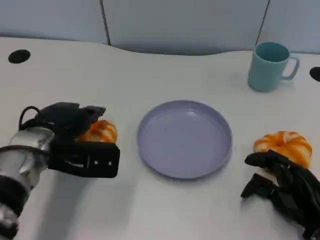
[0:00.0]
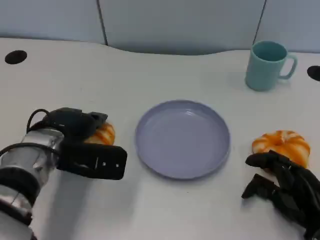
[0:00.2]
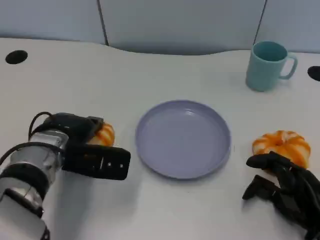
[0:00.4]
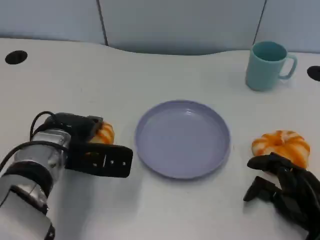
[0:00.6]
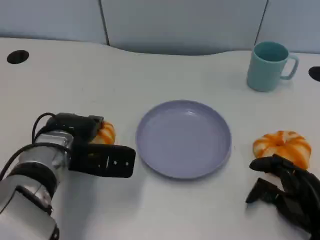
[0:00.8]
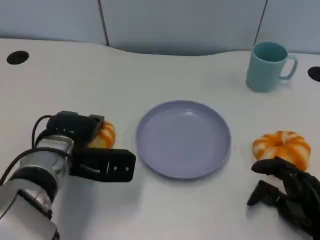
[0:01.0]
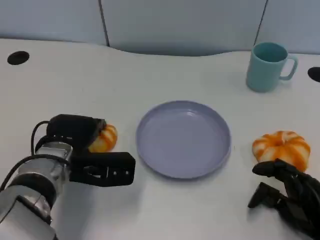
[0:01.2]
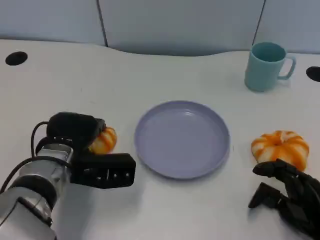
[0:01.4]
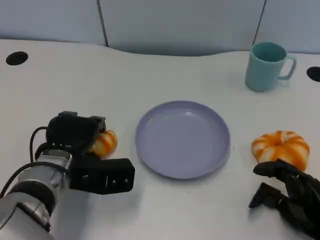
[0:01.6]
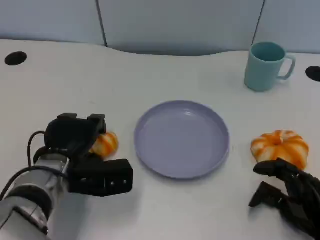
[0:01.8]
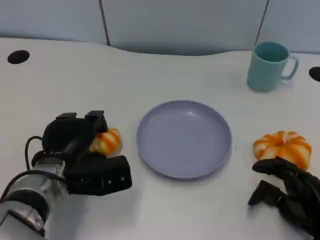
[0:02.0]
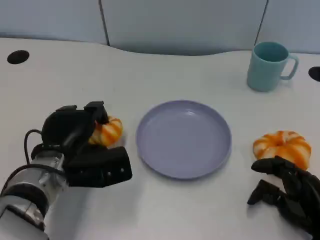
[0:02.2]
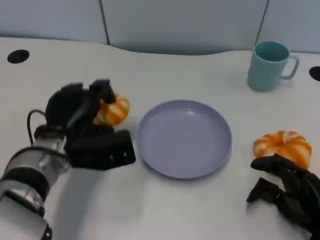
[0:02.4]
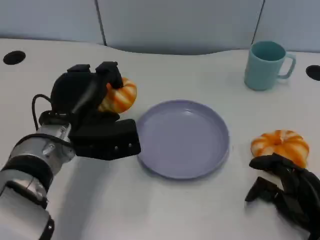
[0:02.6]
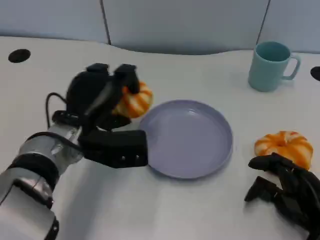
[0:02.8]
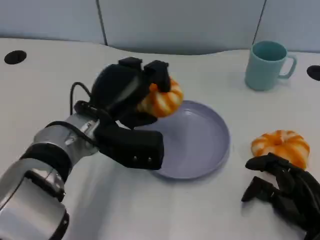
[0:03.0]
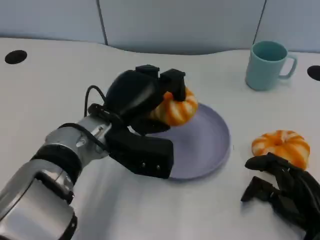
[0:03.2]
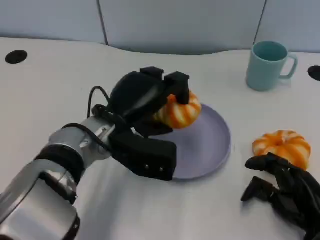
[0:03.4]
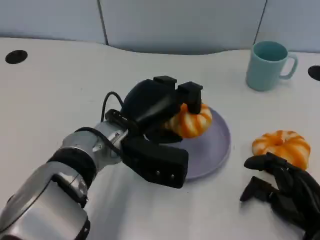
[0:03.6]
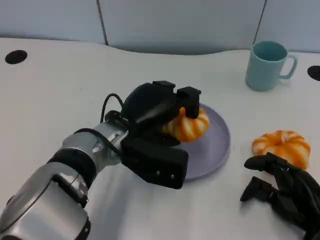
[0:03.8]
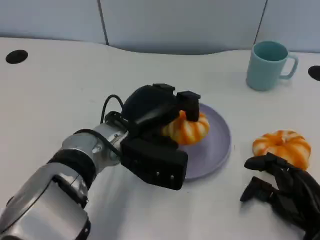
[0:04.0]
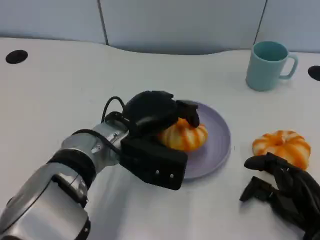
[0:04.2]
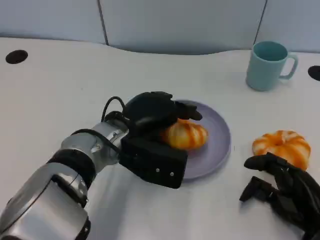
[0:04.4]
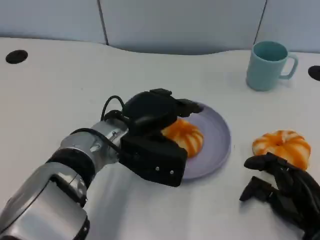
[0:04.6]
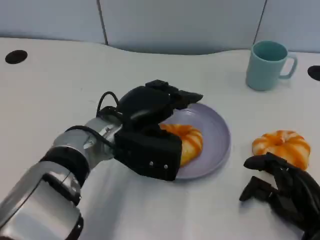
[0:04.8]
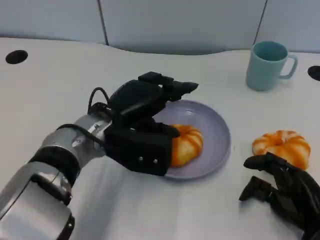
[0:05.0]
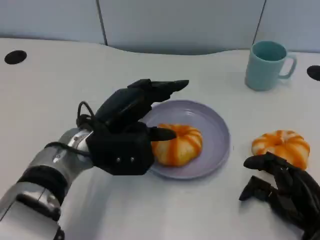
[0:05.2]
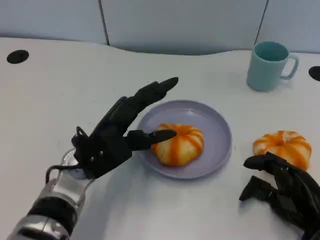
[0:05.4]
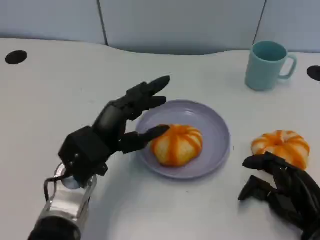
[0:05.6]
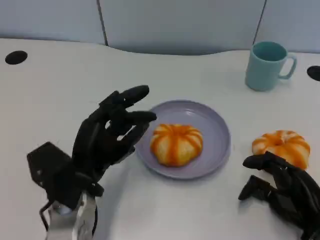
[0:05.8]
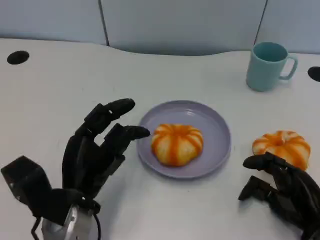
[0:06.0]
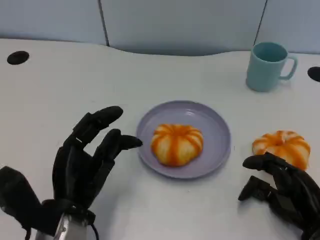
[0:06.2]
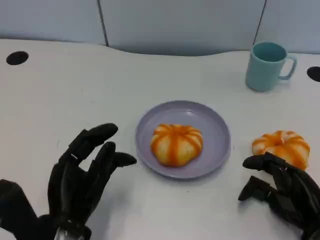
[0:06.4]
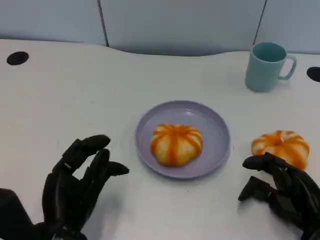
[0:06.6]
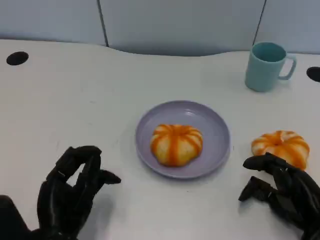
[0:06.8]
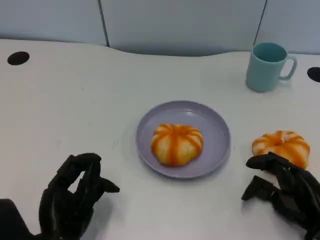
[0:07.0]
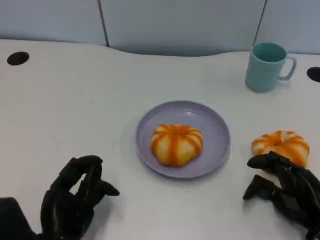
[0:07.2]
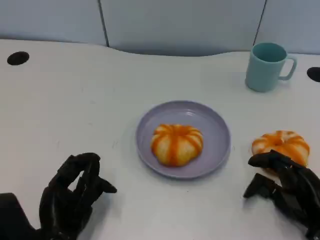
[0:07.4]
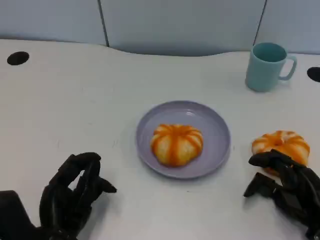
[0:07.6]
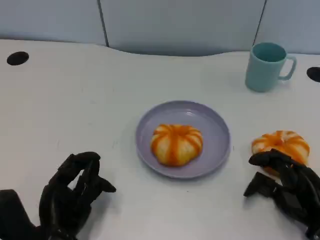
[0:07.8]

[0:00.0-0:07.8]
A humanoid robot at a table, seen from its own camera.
Task of the whole recording: Grasp the bread from the table and place it into the plate.
0:00.0 to 0:01.6: The left hand shifts by roughly 5 cm.
0:01.6 to 0:03.2: The left hand heads to the right and upward, covering approximately 10 cm.
0:03.2 to 0:04.6: The hands make only small movements.
0:04.6 to 0:06.2: The left hand heads backward and to the left, covering approximately 15 cm.
0:06.2 to 0:07.8: The left hand changes place by about 5 cm.

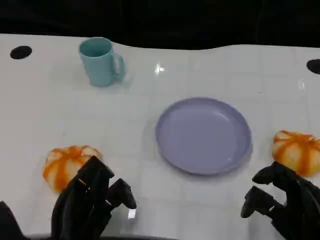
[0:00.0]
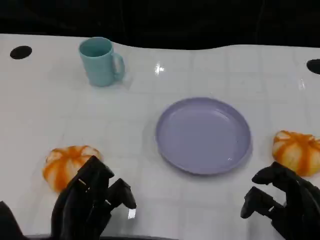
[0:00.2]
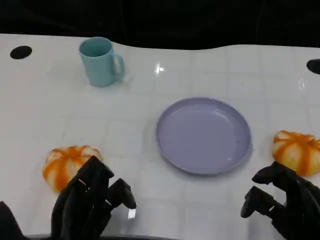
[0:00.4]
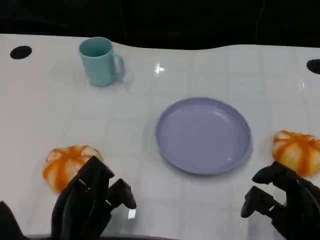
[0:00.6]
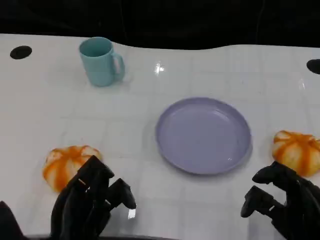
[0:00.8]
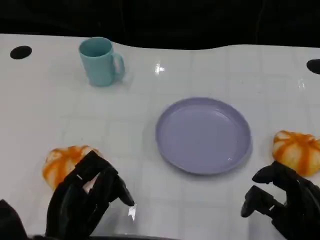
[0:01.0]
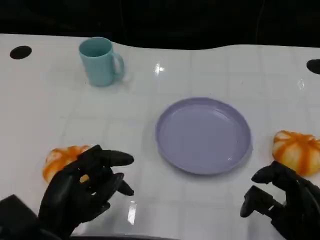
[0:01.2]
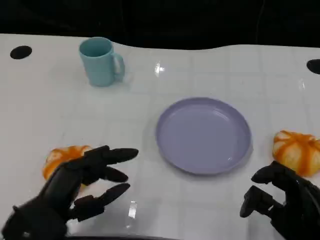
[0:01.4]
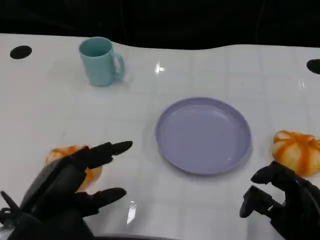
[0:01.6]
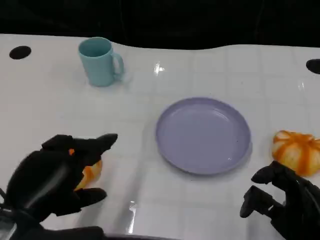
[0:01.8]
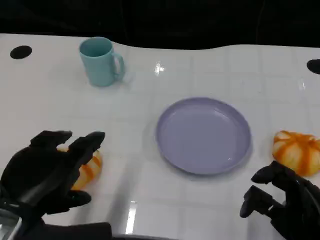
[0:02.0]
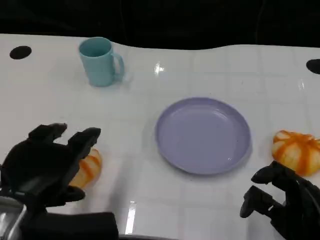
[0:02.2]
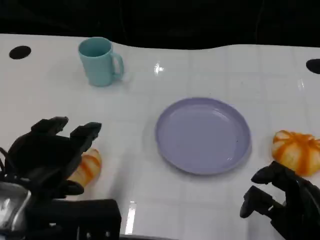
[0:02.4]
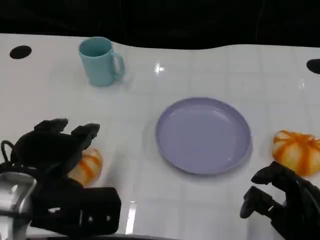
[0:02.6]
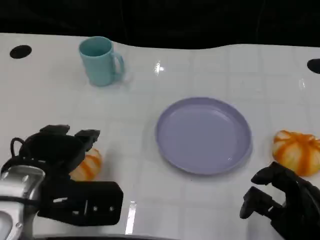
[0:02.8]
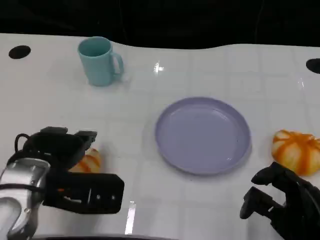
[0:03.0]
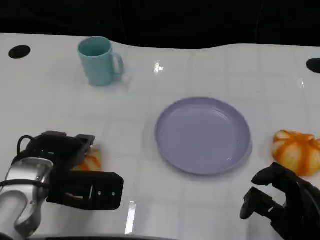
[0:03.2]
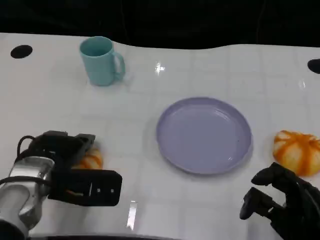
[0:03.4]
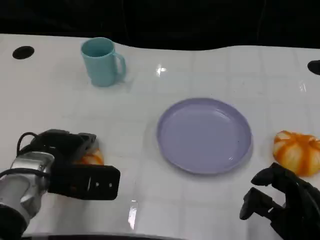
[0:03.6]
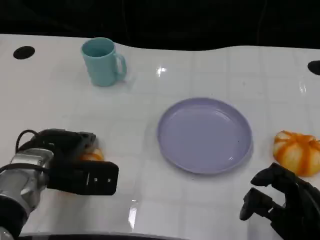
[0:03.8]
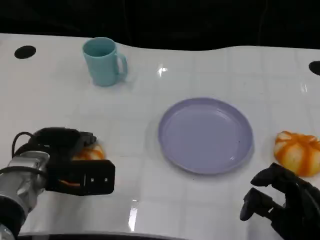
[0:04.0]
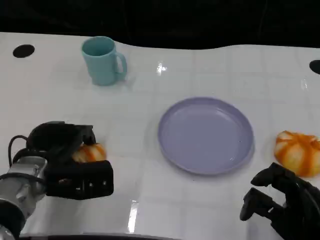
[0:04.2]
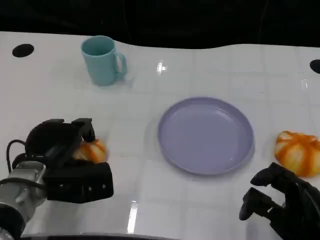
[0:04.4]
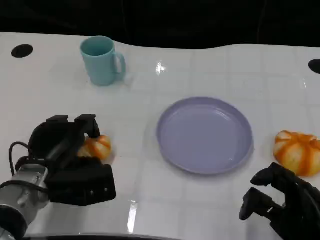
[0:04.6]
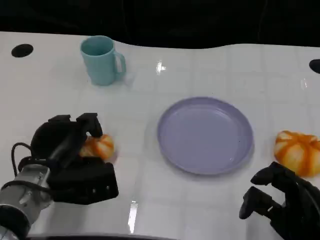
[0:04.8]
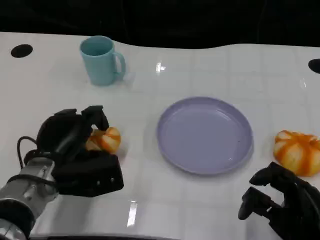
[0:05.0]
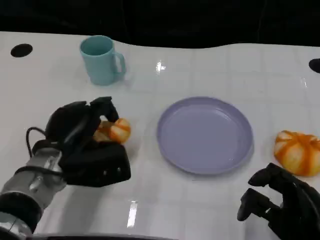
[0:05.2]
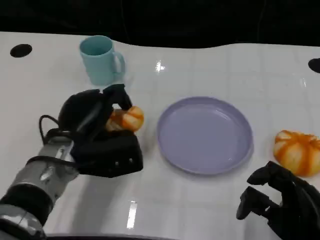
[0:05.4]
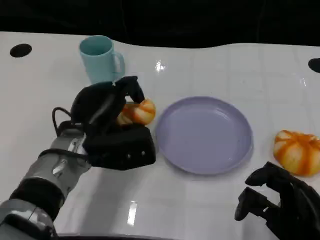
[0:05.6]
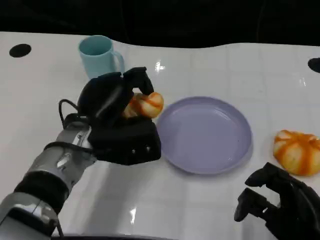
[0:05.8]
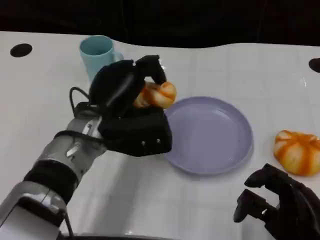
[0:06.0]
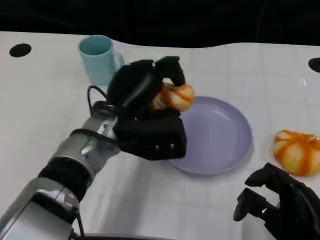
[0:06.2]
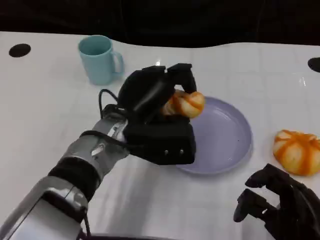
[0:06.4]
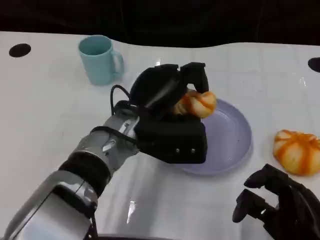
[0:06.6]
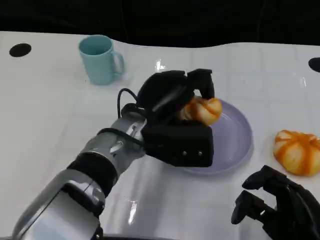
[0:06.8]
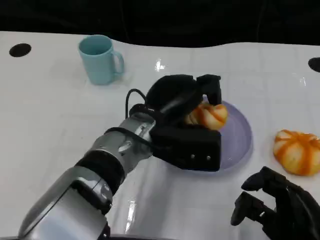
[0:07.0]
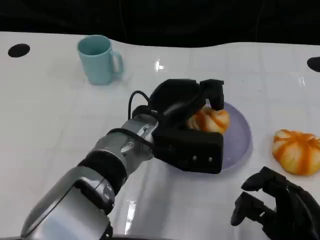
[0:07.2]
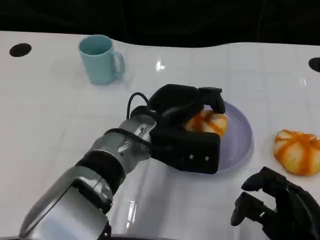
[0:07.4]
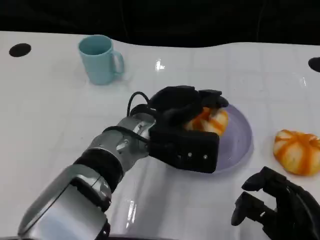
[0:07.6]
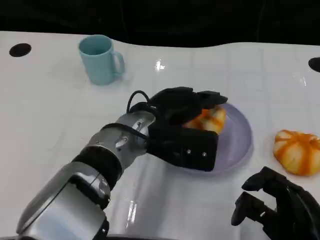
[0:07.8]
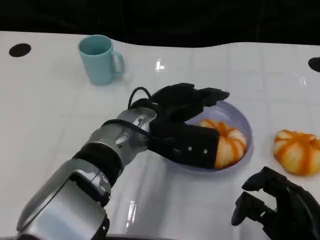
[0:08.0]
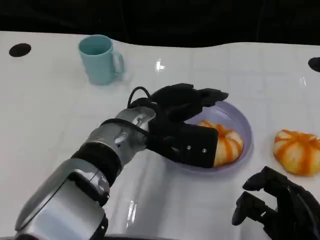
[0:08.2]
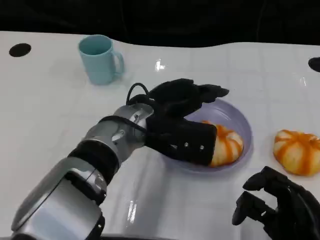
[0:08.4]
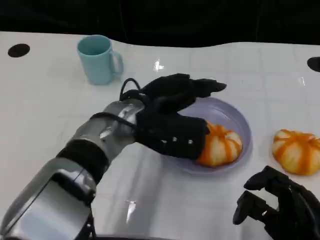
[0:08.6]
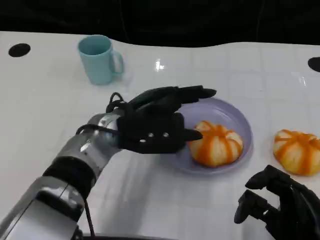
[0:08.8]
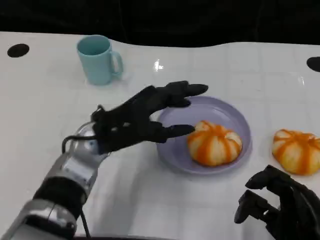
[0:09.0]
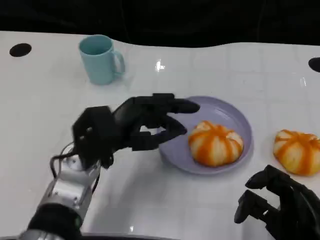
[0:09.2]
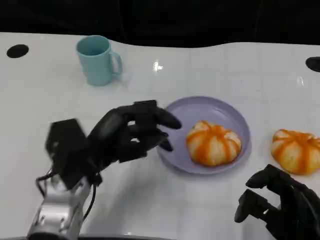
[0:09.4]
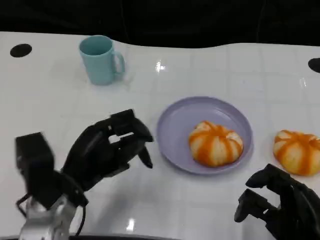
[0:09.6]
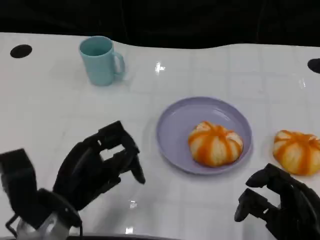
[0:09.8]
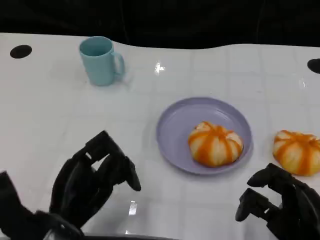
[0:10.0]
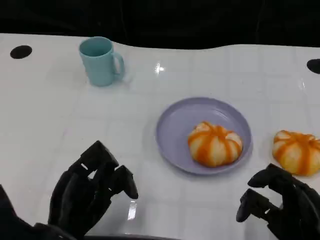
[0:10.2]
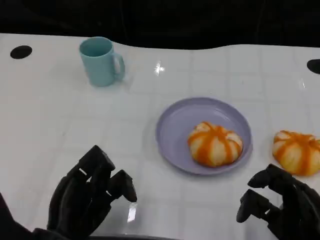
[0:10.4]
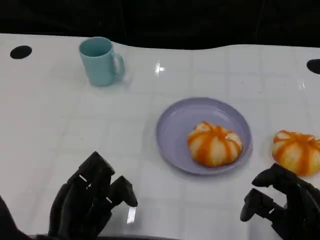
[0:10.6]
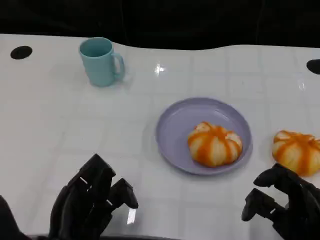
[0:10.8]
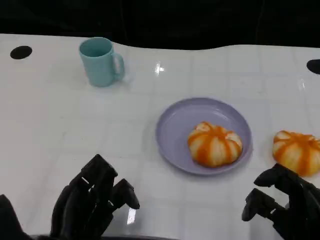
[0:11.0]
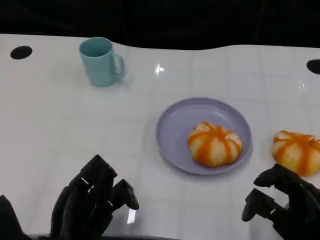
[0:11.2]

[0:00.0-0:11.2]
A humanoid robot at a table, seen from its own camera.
Task of the whole recording: Grasp the bread from the table and place it into the plate.
0:00.0 to 0:01.6: The left hand moves upward, about 10 cm.
0:01.6 to 0:03.2: The left hand moves forward, some 10 cm.
0:04.8 to 0:06.4: The left hand shifts approximately 15 cm to the right and upward.
0:08.0 to 0:09.6: The left hand is displaced to the left and backward by about 15 cm.
0:09.6 to 0:11.2: The left hand heads backward, covering about 5 cm.

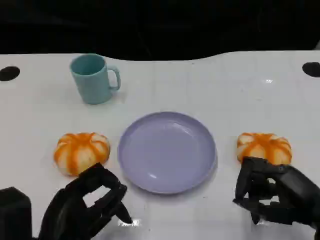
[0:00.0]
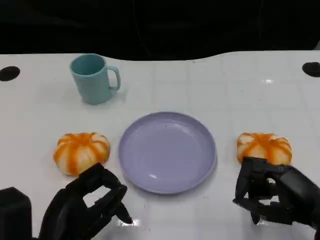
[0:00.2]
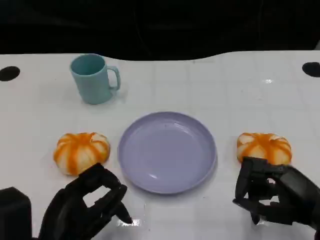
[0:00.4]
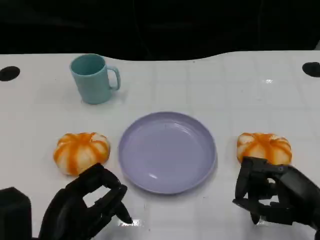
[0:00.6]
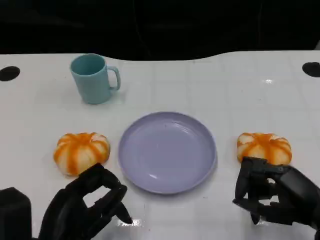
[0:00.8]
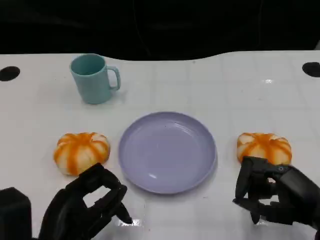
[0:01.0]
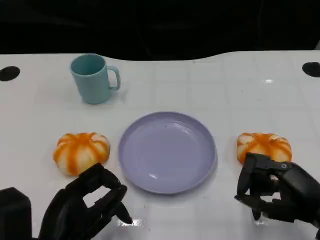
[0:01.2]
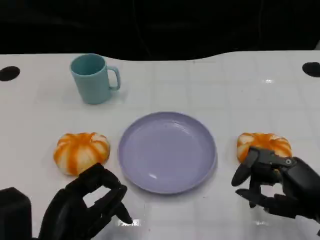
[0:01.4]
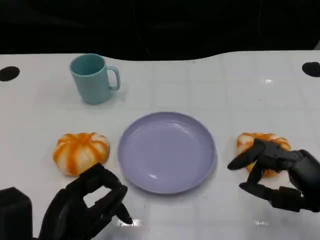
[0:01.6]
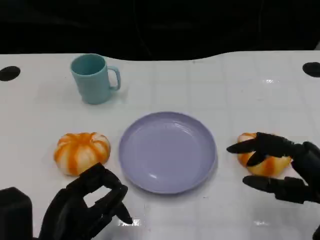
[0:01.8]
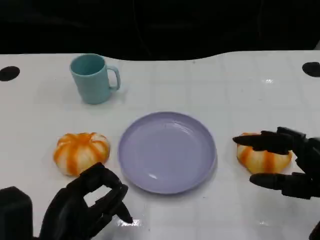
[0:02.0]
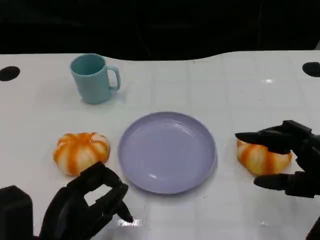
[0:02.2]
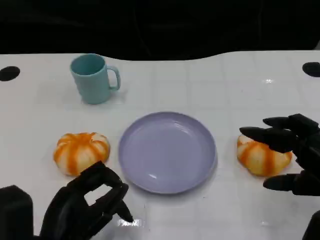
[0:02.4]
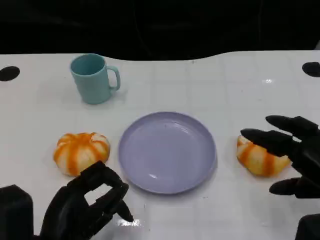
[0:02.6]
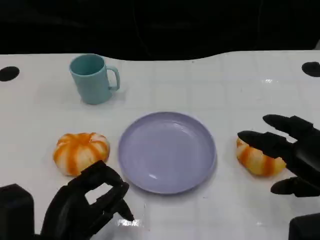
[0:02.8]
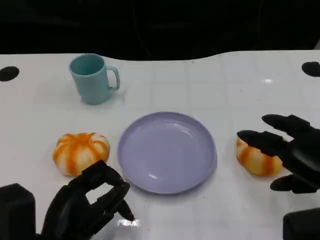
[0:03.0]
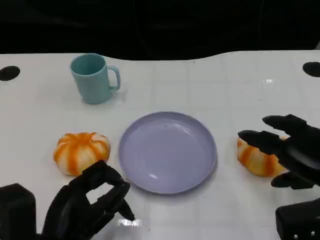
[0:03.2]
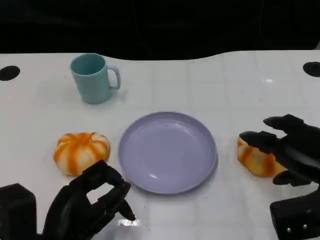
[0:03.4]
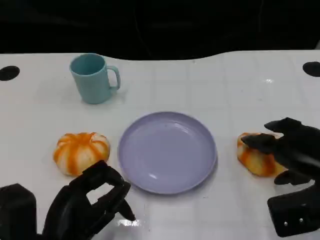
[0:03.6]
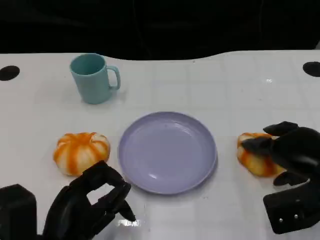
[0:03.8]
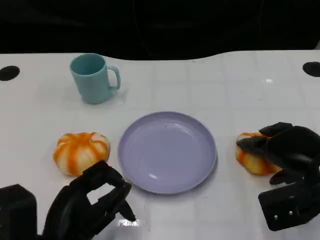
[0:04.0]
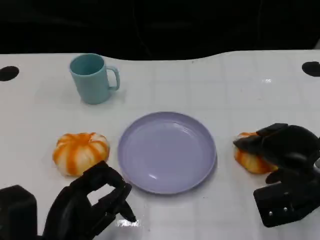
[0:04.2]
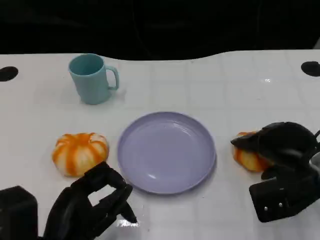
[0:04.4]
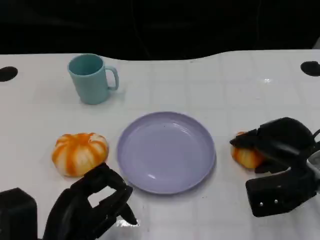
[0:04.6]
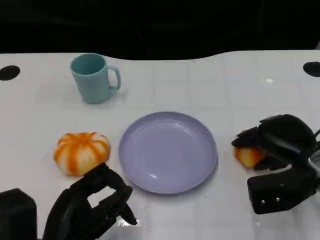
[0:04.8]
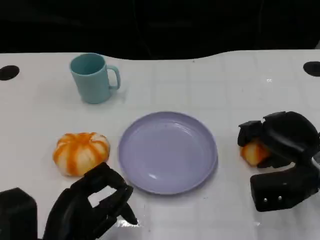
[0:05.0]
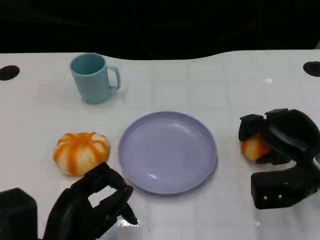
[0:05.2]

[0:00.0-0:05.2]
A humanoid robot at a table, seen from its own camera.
Task of the whole recording: Grasp the bread from the table and place it into the plate.
0:01.8 to 0:03.4: The right hand moves forward, approximately 5 cm.
0:03.4 to 0:05.2: The right hand moves roughly 5 cm.
